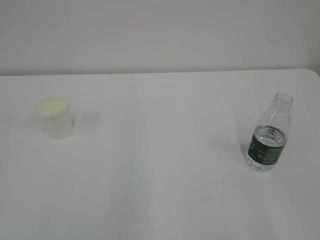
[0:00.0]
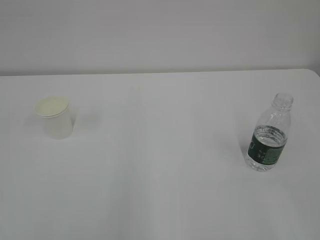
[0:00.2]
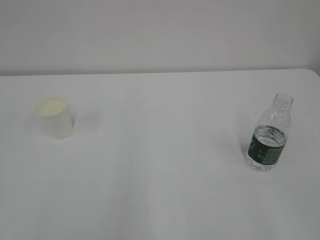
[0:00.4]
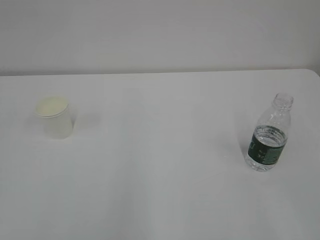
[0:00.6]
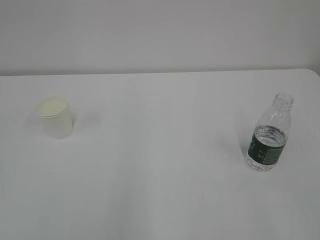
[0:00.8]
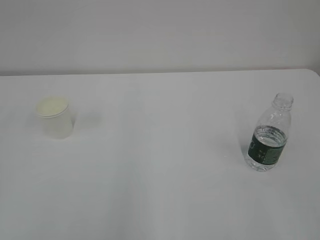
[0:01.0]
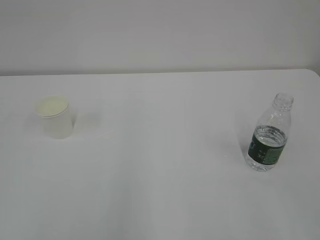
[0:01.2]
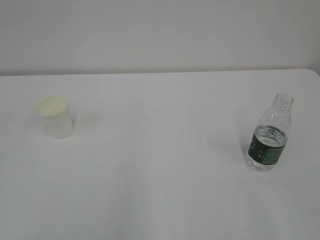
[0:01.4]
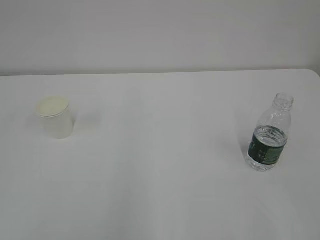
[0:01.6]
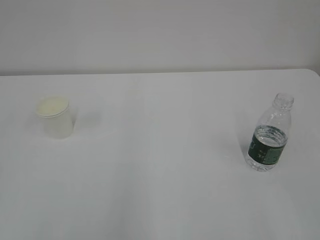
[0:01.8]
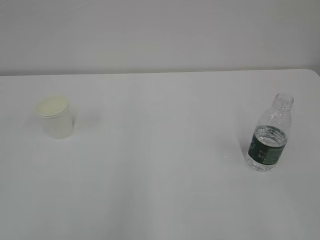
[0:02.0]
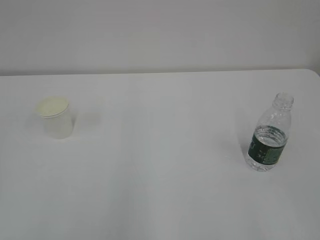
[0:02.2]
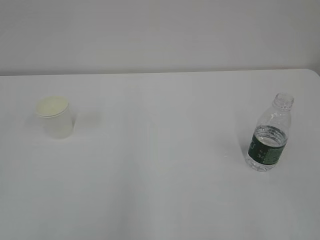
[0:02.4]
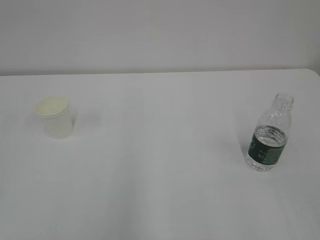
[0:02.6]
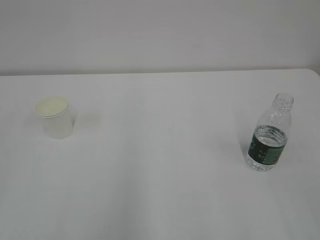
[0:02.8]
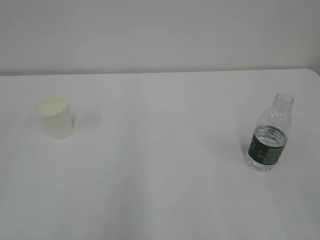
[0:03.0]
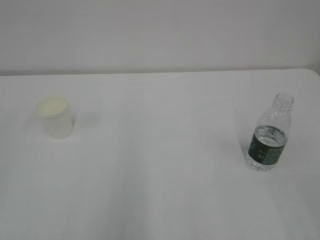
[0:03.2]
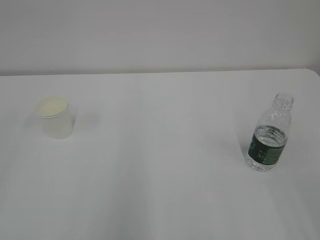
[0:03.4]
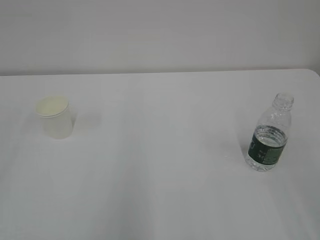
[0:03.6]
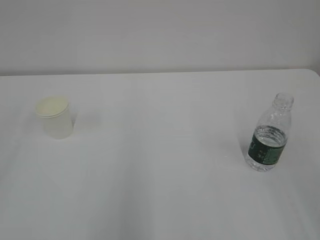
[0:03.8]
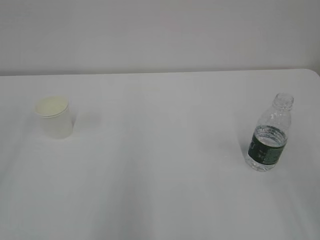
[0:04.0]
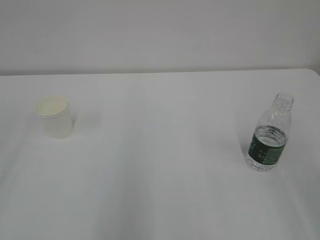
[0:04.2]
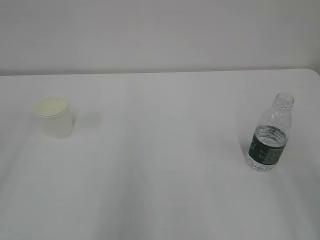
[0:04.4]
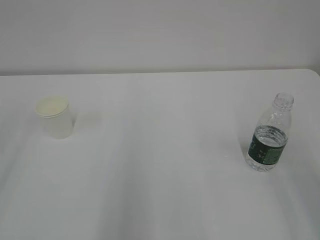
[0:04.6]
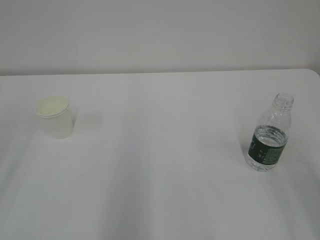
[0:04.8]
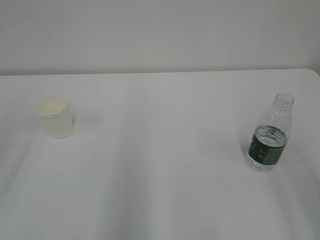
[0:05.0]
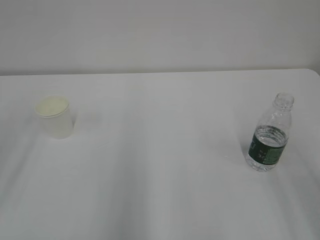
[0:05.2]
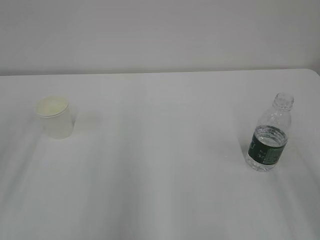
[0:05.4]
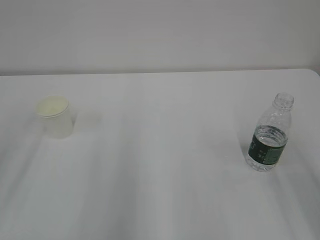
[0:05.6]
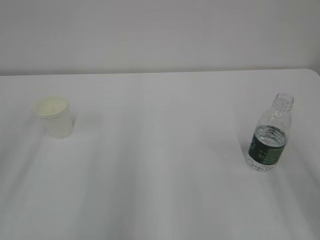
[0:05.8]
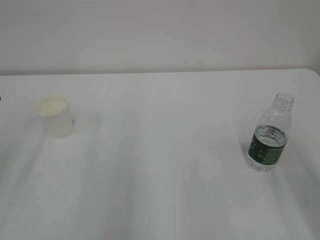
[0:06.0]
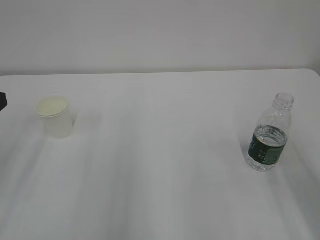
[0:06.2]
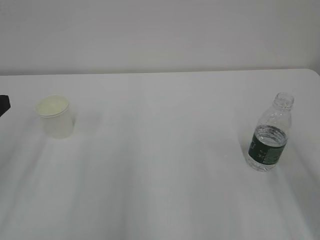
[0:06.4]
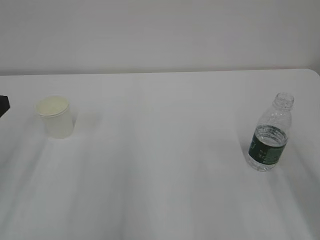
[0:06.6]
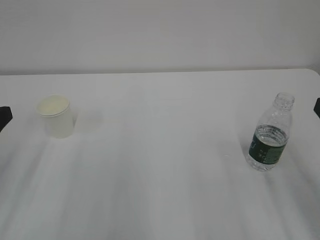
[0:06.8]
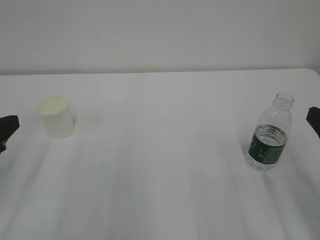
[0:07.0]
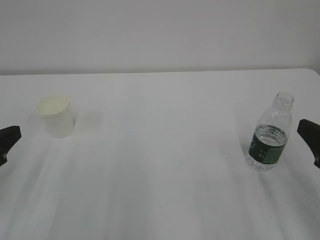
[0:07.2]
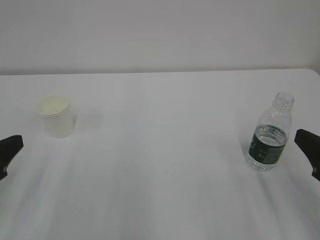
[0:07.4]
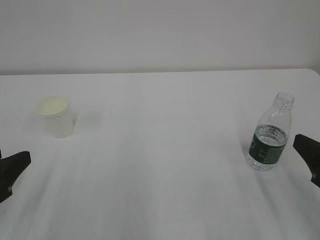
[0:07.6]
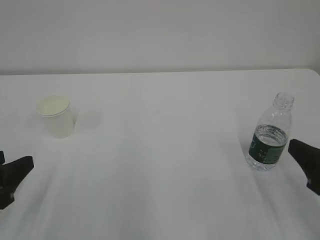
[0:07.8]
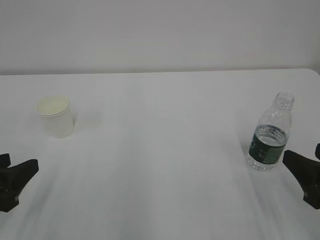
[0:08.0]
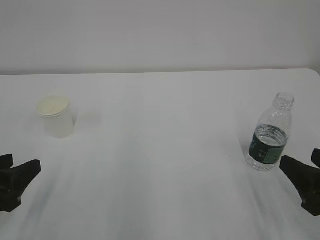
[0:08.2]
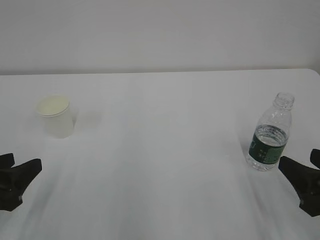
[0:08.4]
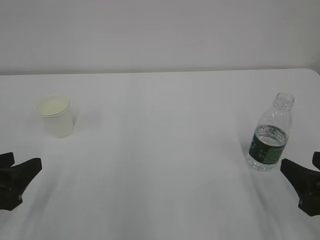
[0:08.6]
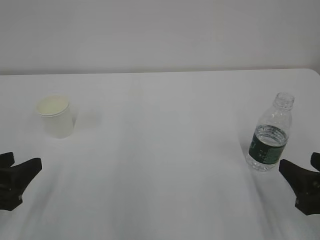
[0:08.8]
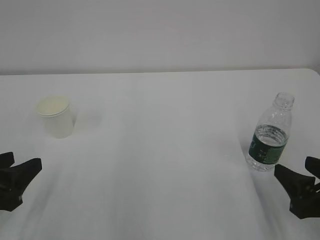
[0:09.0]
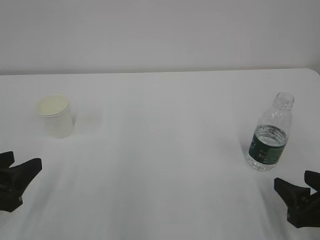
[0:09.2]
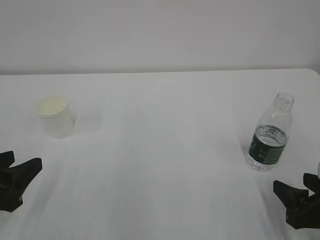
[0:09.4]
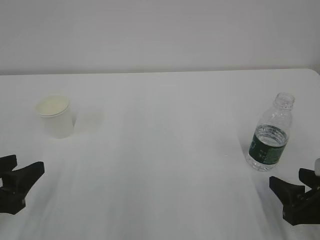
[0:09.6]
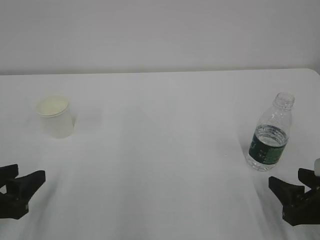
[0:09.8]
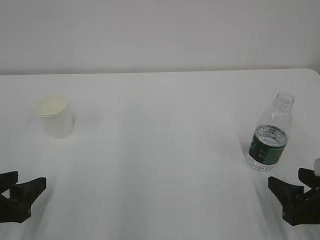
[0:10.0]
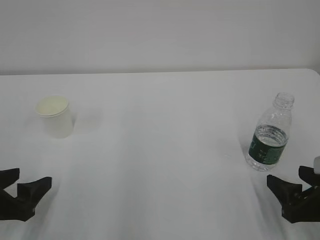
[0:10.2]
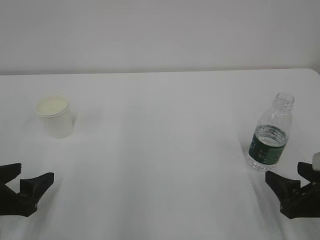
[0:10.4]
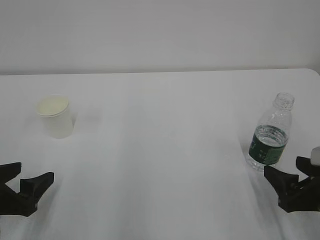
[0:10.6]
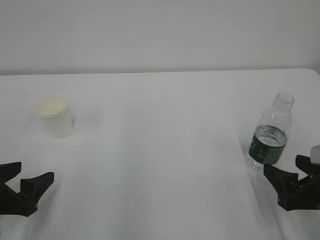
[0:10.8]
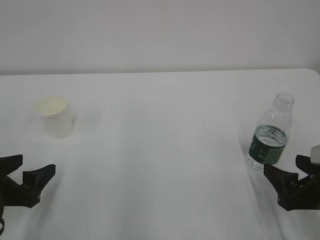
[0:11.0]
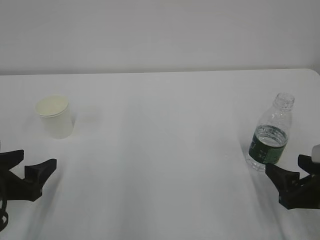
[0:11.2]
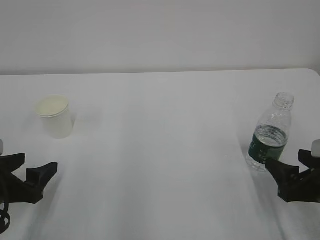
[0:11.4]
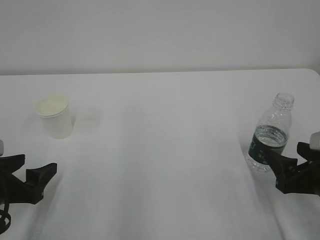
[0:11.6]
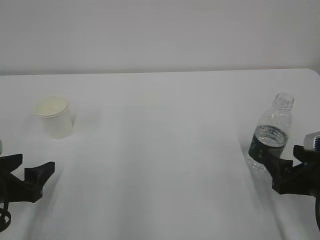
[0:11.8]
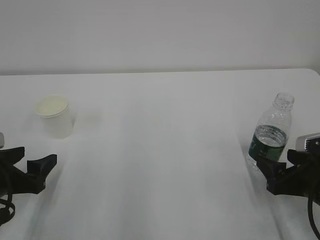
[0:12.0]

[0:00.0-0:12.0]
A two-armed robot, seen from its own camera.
0:06.0 to 0:07.6: The two grippers go approximately 10 cm downward.
0:07.6 to 0:09.0: The right gripper heads downward, covering some 5 cm.
0:09.0 to 0:10.4: The left gripper opens.
0:10.4 to 0:12.0: The grippers move only a little.

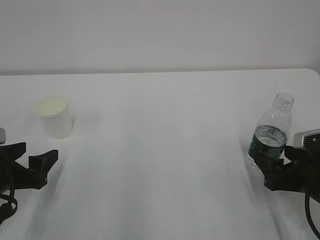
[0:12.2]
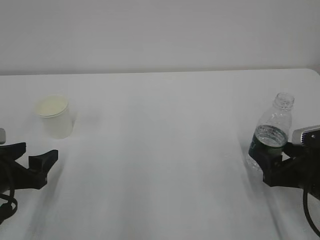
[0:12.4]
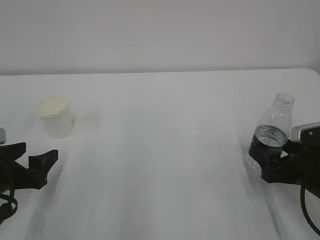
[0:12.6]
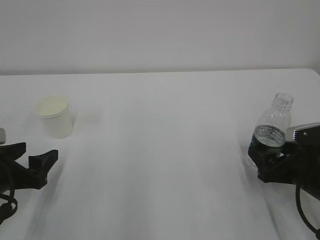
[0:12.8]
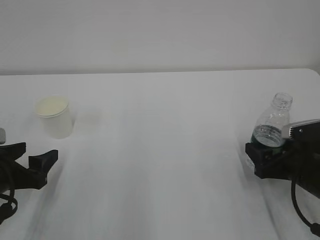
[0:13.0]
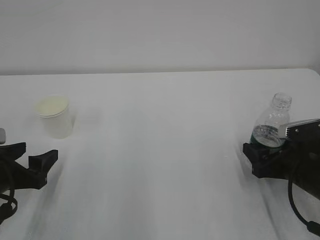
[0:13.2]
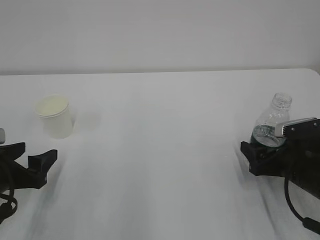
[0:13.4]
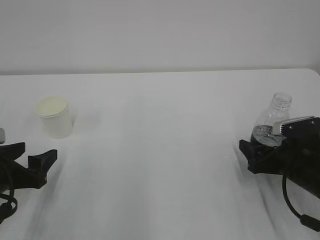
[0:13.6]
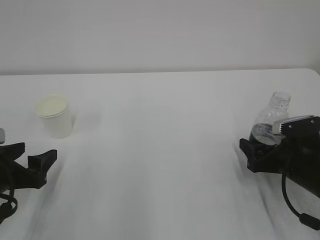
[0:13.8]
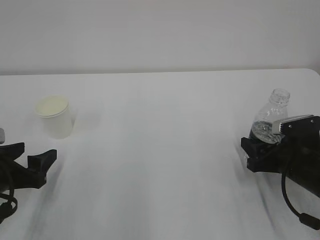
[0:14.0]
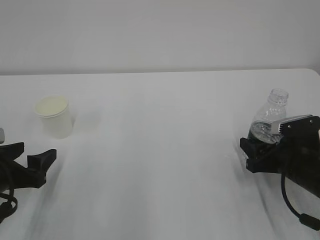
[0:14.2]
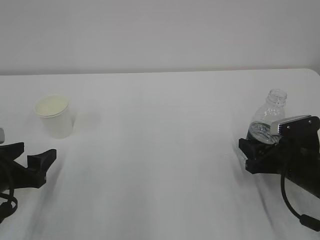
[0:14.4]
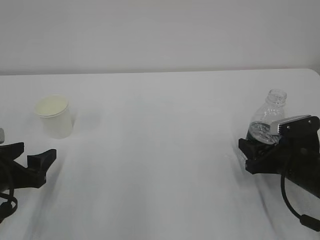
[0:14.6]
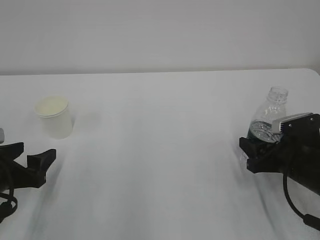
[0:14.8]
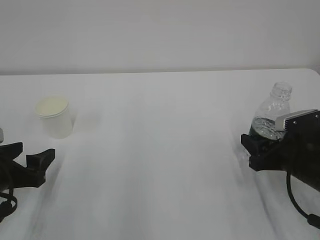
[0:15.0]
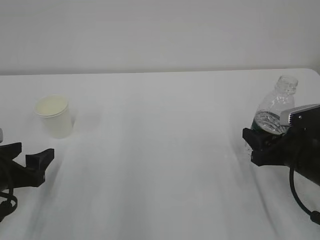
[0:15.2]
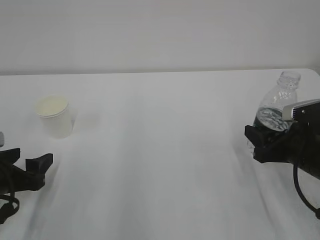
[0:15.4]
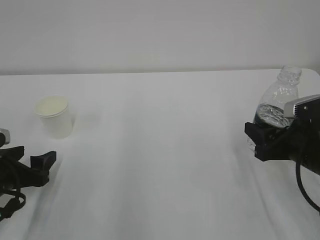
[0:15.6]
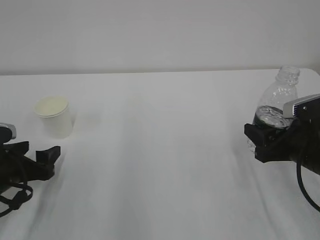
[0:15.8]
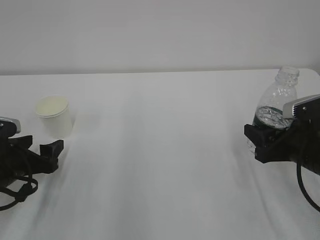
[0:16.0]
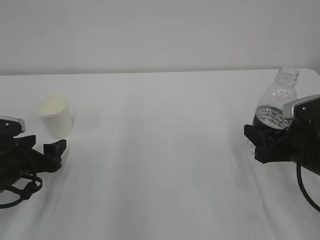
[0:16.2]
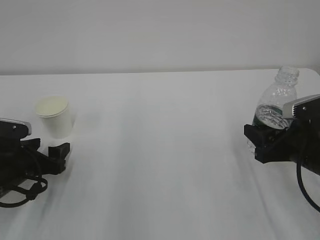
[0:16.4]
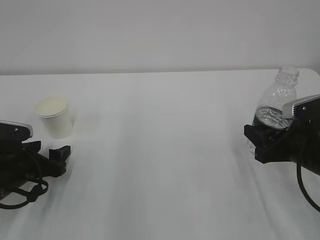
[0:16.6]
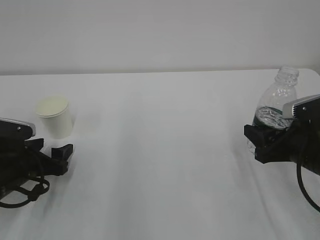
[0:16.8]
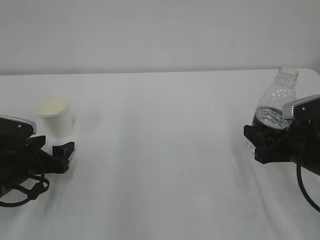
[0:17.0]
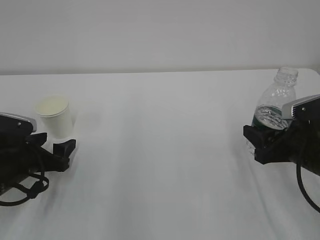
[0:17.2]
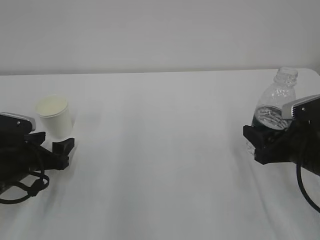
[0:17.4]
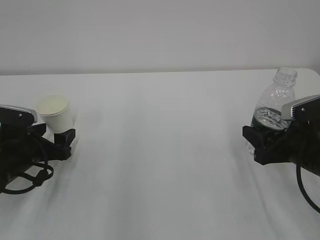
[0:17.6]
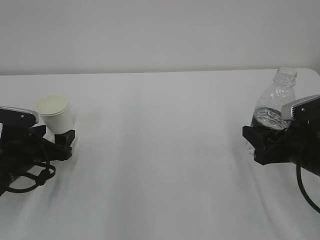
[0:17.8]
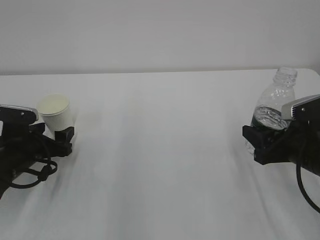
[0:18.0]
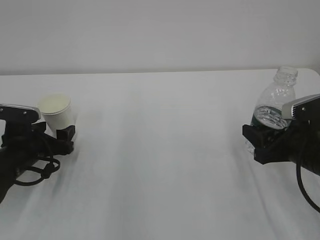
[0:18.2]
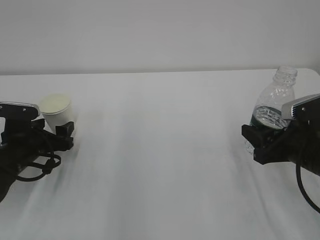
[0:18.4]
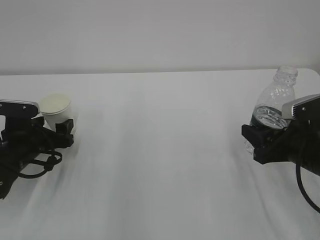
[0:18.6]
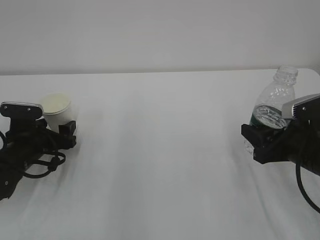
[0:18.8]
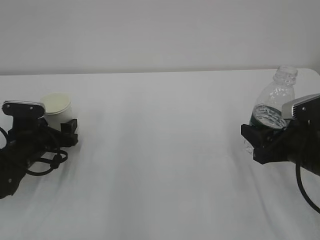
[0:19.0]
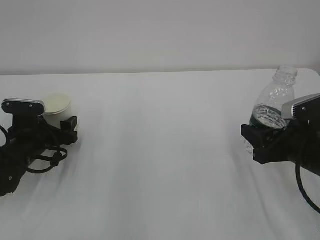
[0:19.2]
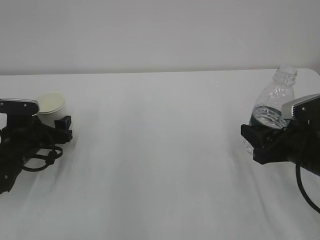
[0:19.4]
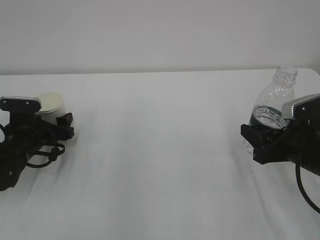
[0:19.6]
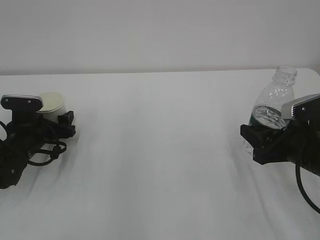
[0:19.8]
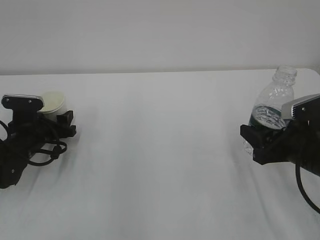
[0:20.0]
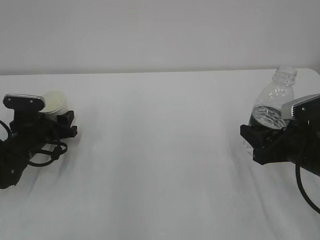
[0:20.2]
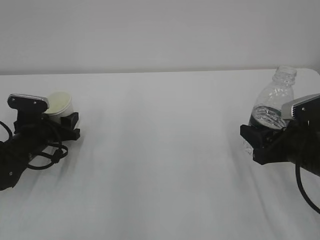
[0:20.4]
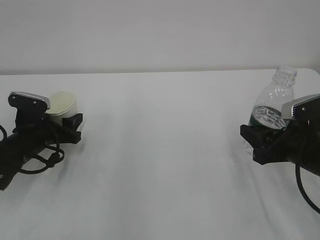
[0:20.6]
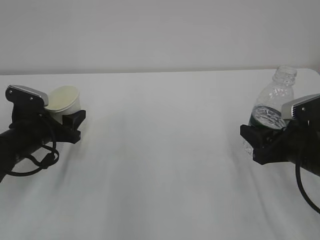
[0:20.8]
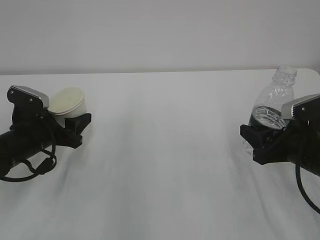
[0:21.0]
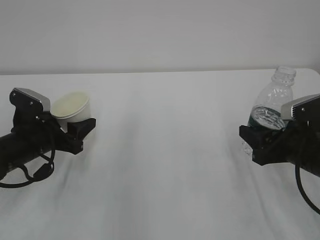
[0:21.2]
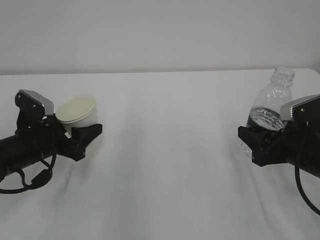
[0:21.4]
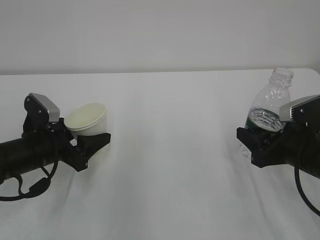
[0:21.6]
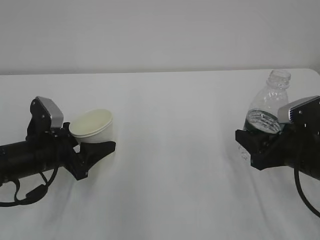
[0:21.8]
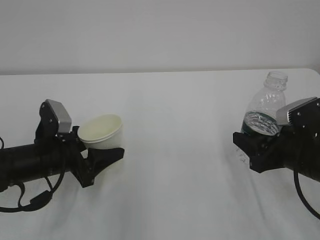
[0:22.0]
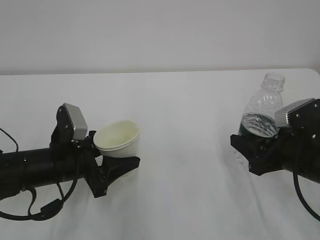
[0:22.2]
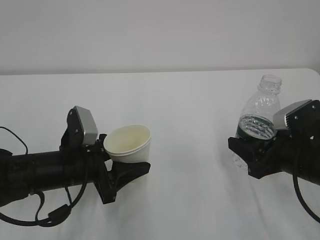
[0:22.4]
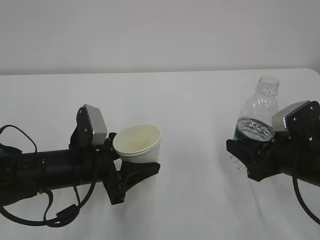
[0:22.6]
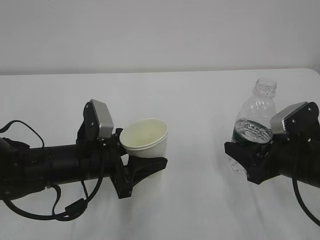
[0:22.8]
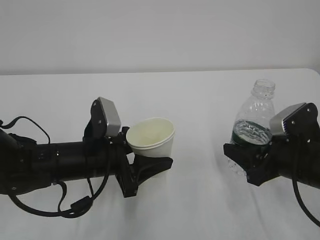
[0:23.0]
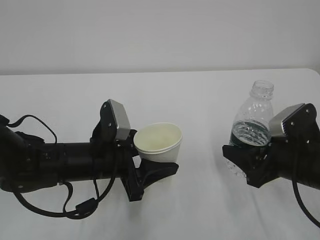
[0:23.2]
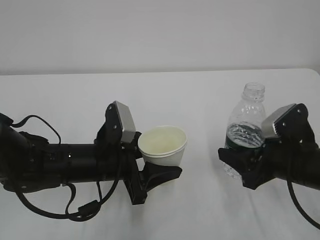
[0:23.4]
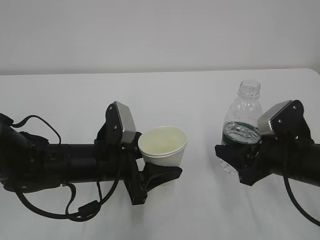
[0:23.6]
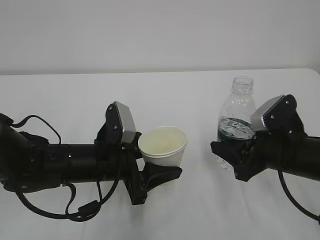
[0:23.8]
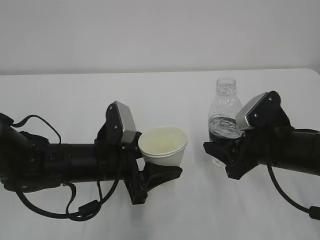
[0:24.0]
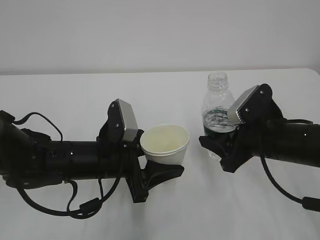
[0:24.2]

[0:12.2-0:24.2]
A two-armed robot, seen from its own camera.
0:12.2 to 0:13.8: The right gripper shifts about 5 cm forward.
0:13.8 to 0:15.2: The right gripper closes.
0:15.2 to 0:16.6: The left gripper shifts some 5 cm forward.
0:16.6 to 0:18.2: The grippers move only a little.
0:18.2 to 0:19.8: The grippers move only a little.
0:19.8 to 0:21.2: The left gripper shifts approximately 5 cm backward, and closes its fingers.
0:21.2 to 0:22.6: The left gripper travels to the right and backward by roughly 10 cm.
0:22.6 to 0:24.2: The right gripper shifts by some 5 cm.
